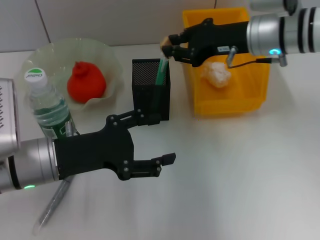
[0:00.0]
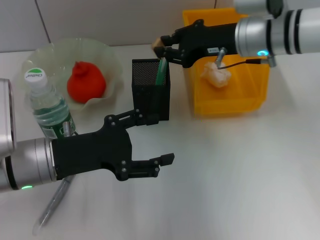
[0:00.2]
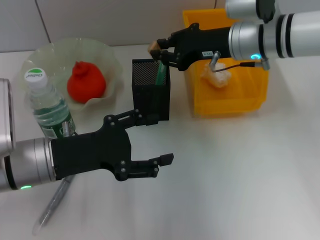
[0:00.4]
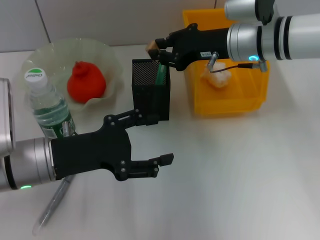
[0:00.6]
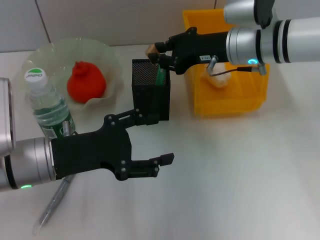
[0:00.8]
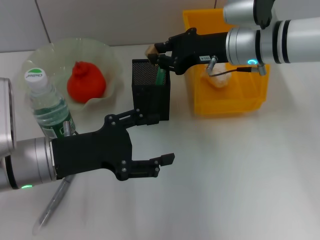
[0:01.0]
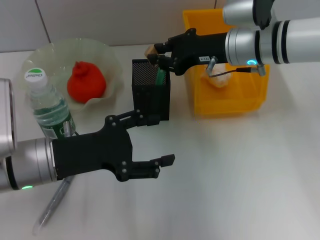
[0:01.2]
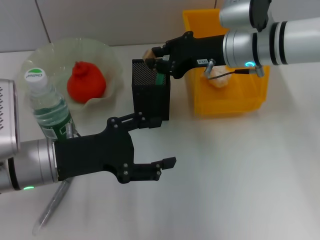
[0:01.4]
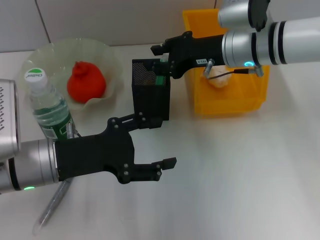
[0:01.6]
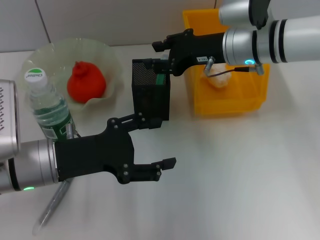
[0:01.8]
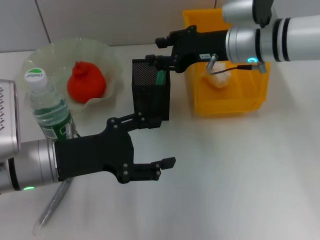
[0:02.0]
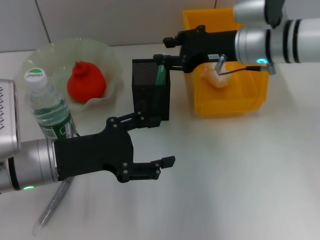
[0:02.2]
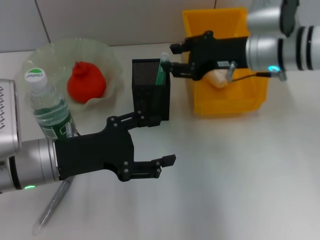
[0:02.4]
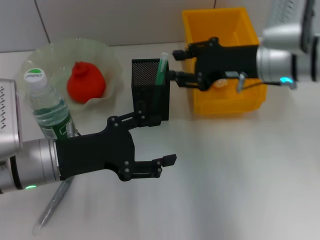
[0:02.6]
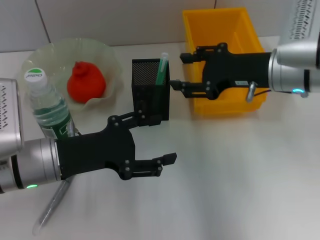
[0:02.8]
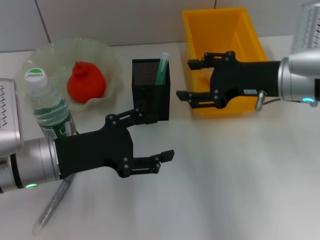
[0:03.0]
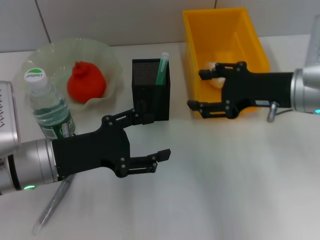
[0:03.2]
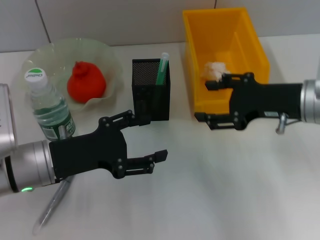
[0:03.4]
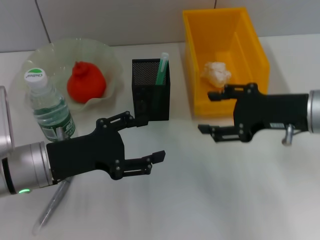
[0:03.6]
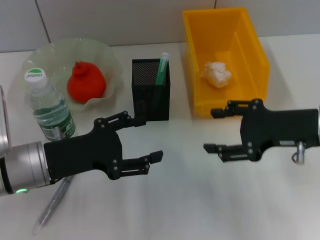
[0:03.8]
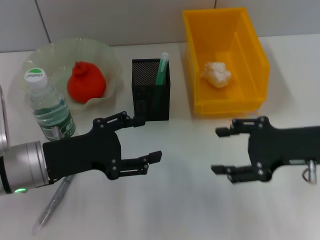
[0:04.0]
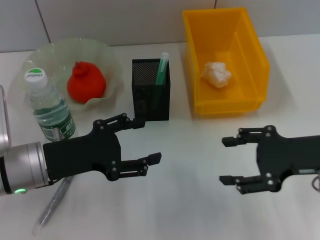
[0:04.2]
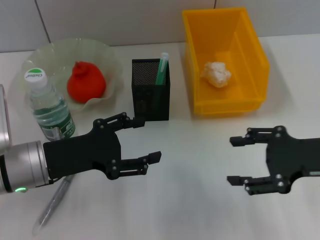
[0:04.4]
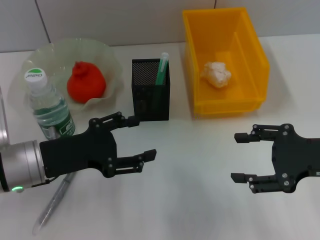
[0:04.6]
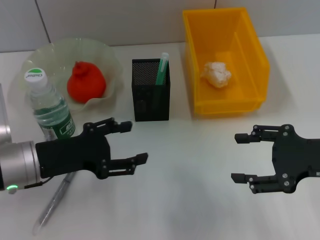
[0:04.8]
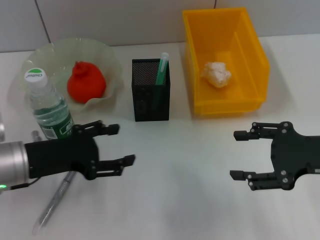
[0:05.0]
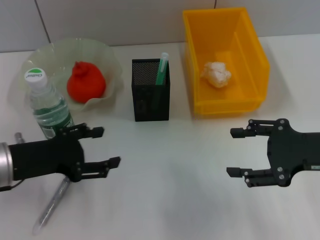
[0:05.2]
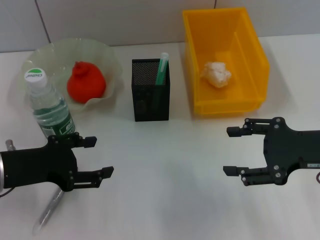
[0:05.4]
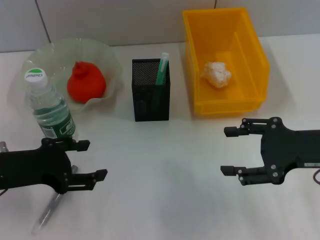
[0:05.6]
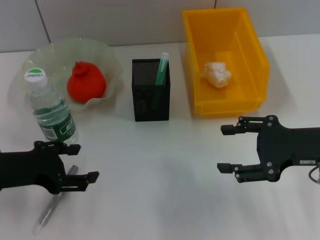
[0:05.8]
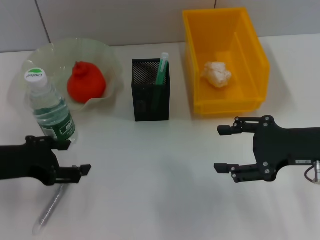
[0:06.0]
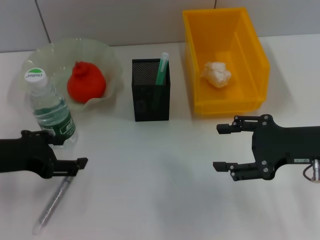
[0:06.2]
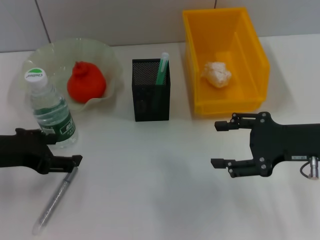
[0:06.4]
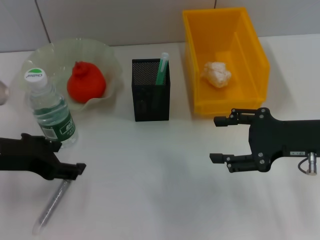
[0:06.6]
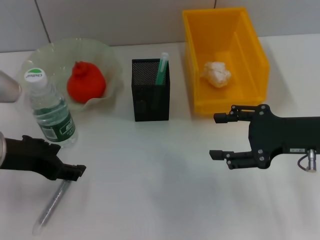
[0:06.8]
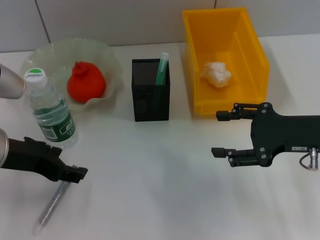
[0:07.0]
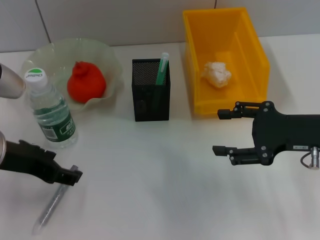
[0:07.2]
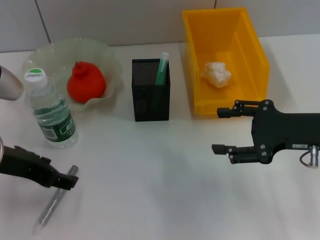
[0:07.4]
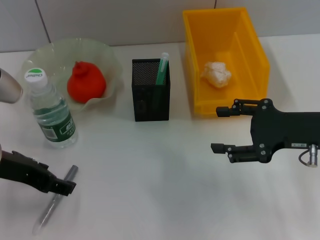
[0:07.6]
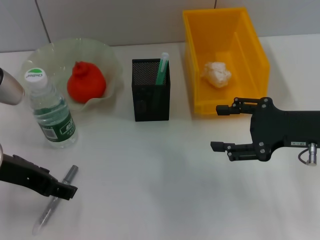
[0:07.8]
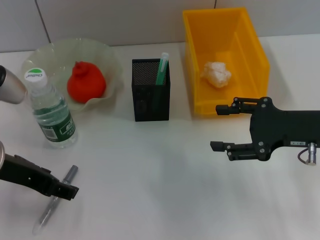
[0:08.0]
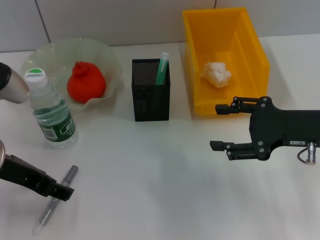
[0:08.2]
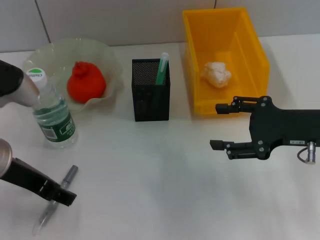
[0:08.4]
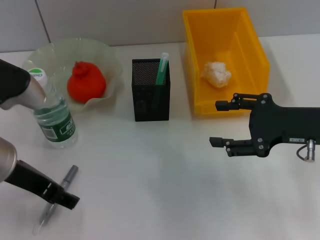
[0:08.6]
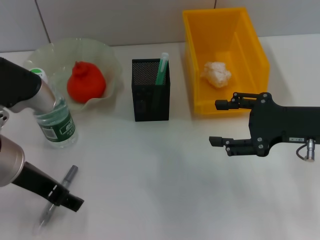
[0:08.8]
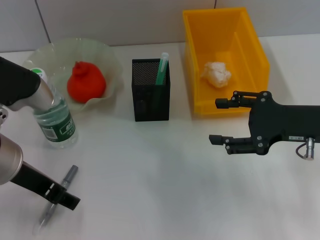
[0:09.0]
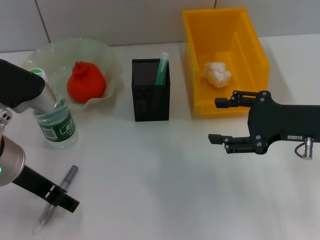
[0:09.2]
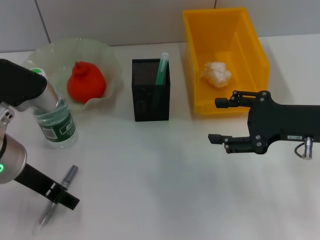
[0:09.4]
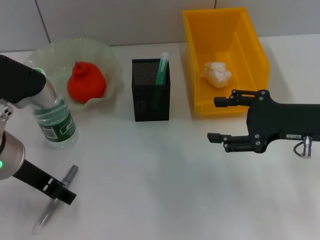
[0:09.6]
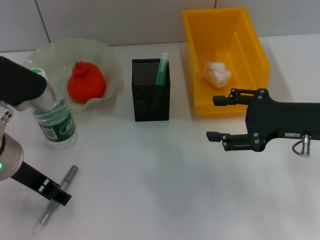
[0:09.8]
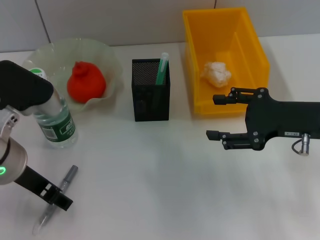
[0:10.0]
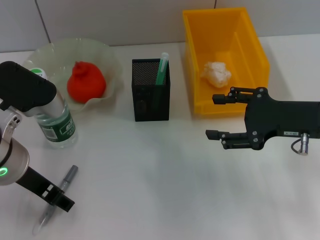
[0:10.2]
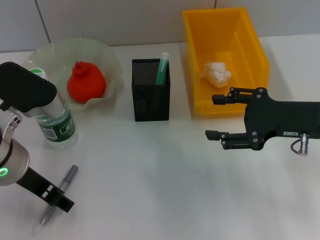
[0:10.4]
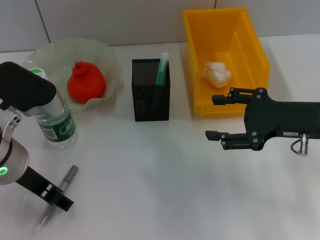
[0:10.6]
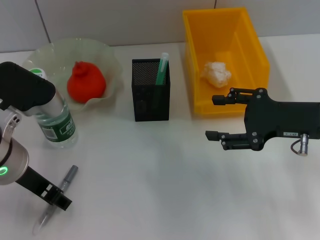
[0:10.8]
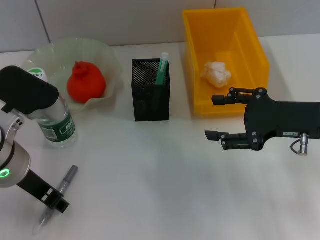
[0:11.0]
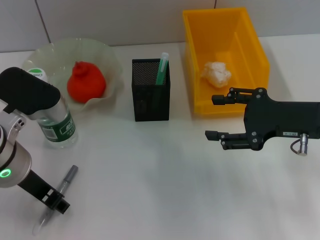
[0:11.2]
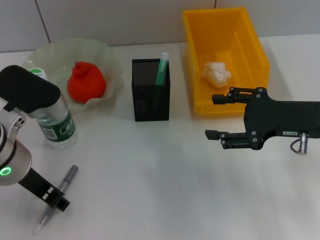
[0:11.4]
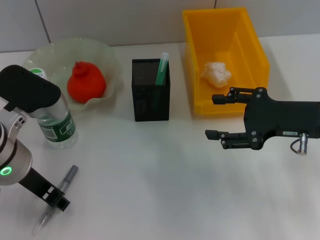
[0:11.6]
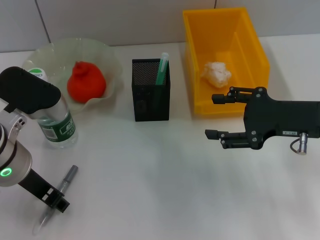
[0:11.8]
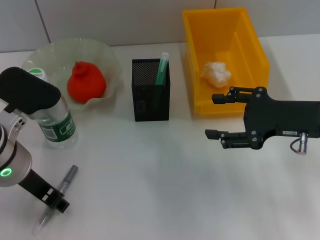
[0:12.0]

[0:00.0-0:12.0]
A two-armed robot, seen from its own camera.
Step, 0:00.0 to 0:02.0: Put the eraser into the pen holder with the right hand.
0:00.0 to 0:01.6: There are only small adjustments of the grippers.
0:01.6 to 0:03.0: The right gripper shifts roughly 10 cm backward and to the right, and opens up.
0:03.0 to 0:04.4: The right gripper heads backward and to the right, covering roughly 10 cm.
0:04.4 to 0:06.0: The left gripper is displaced to the left by roughly 5 cm.
0:06.0 to 0:07.6: The left gripper shifts by some 5 cm.
0:07.6 to 0:10.4: There are only small adjustments of the grippers.
0:10.4 to 0:12.0: The left gripper closes.

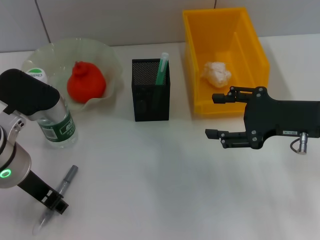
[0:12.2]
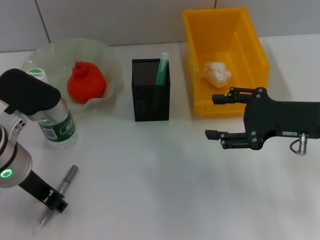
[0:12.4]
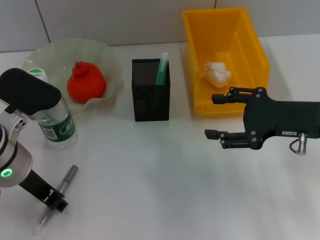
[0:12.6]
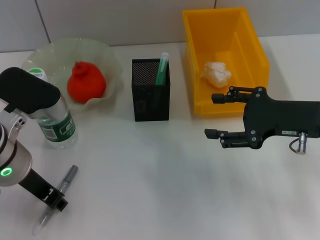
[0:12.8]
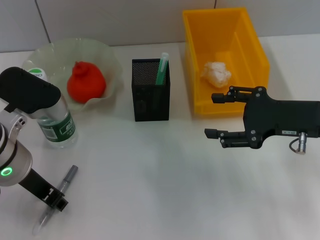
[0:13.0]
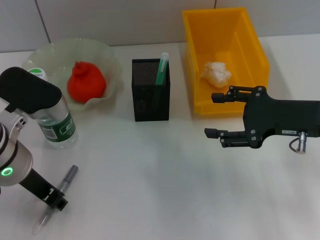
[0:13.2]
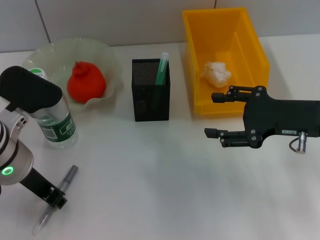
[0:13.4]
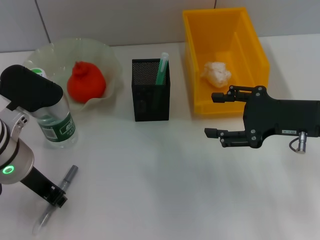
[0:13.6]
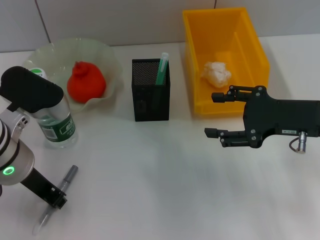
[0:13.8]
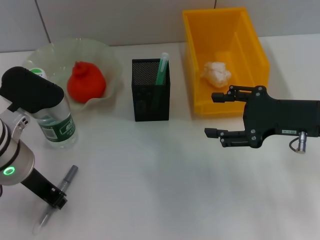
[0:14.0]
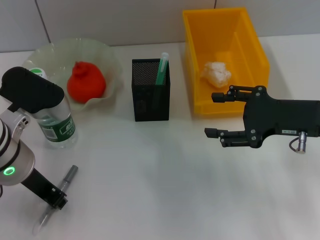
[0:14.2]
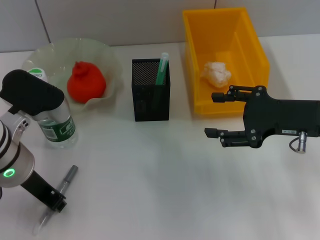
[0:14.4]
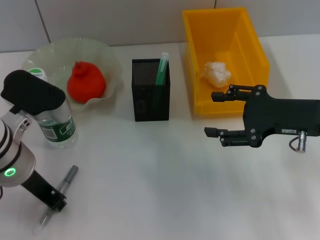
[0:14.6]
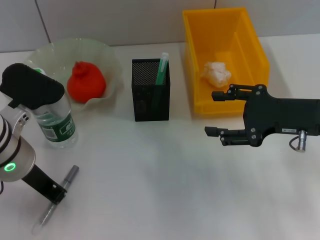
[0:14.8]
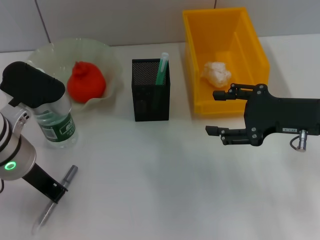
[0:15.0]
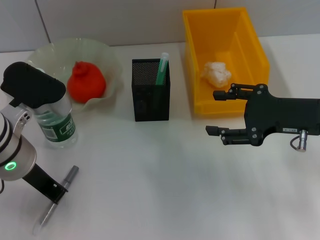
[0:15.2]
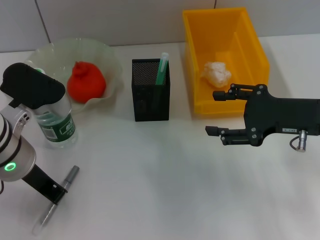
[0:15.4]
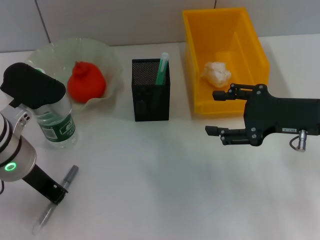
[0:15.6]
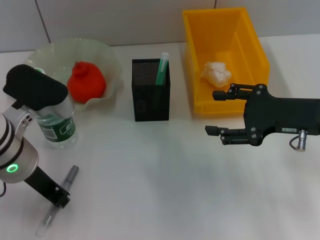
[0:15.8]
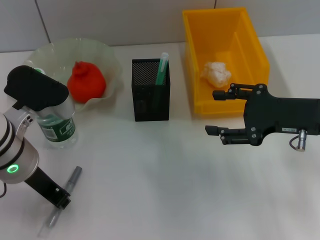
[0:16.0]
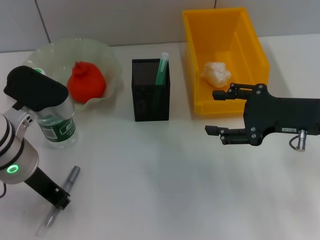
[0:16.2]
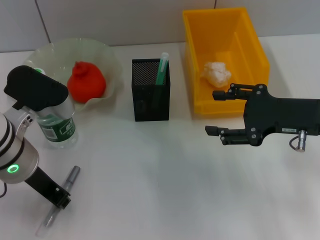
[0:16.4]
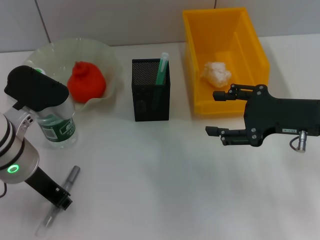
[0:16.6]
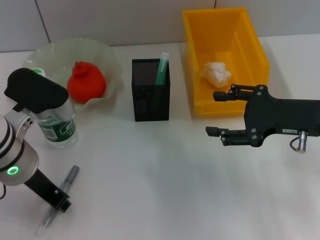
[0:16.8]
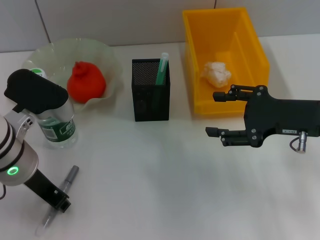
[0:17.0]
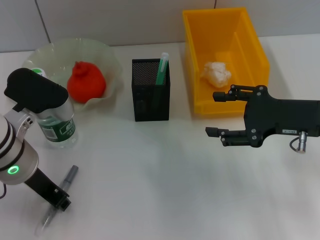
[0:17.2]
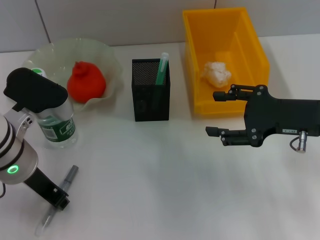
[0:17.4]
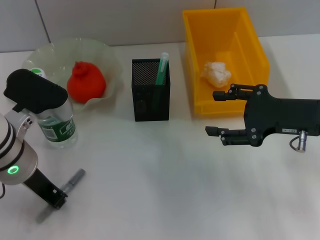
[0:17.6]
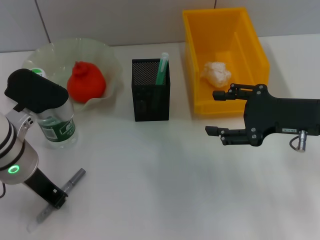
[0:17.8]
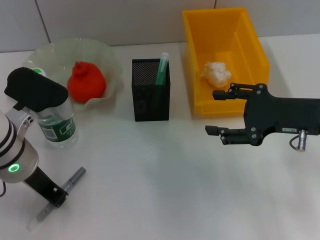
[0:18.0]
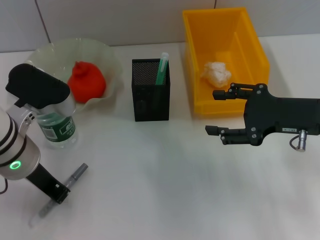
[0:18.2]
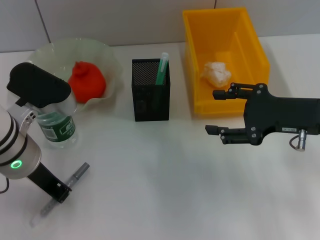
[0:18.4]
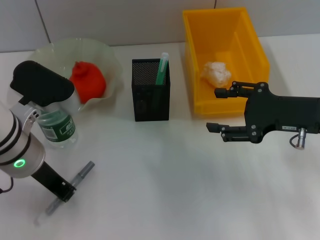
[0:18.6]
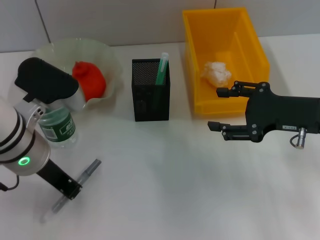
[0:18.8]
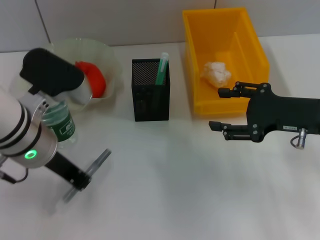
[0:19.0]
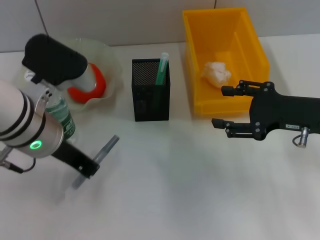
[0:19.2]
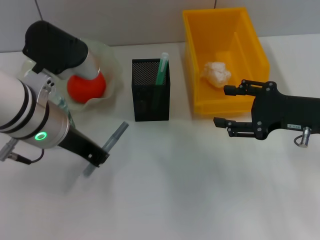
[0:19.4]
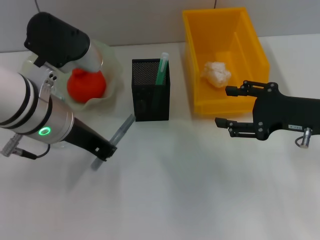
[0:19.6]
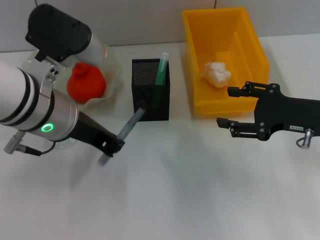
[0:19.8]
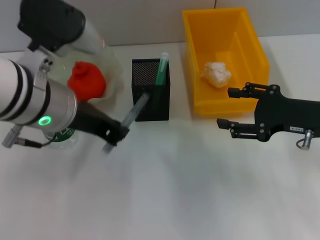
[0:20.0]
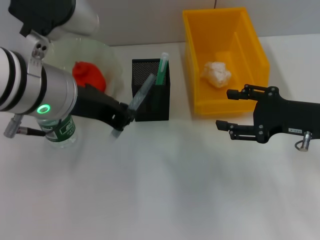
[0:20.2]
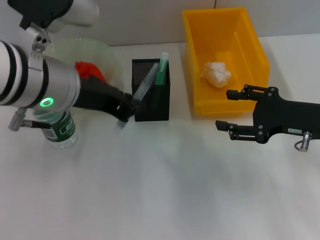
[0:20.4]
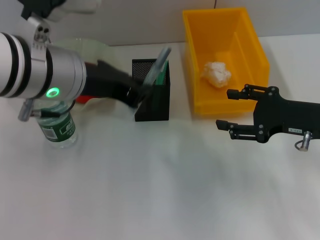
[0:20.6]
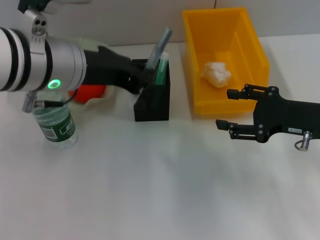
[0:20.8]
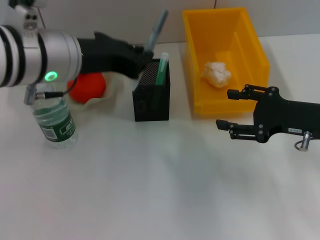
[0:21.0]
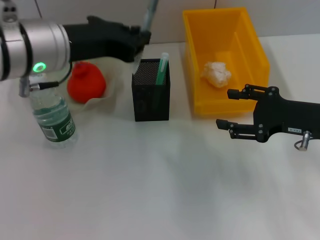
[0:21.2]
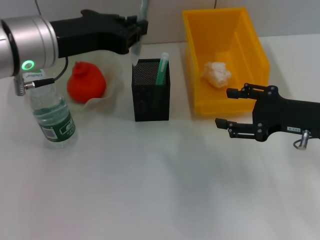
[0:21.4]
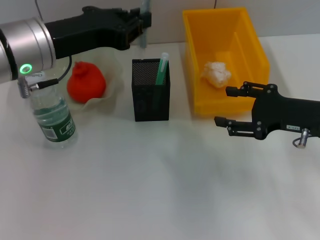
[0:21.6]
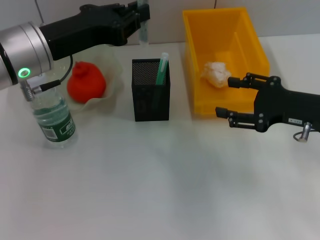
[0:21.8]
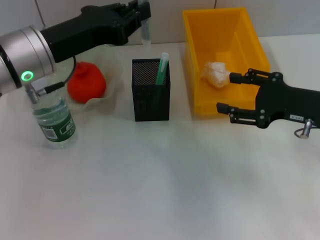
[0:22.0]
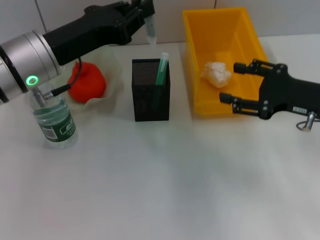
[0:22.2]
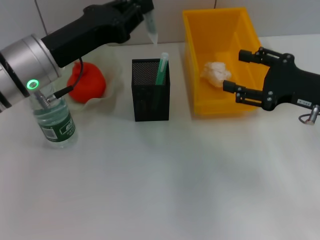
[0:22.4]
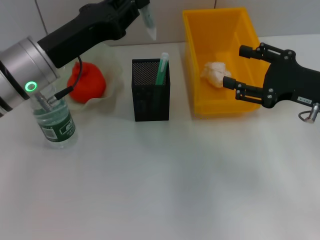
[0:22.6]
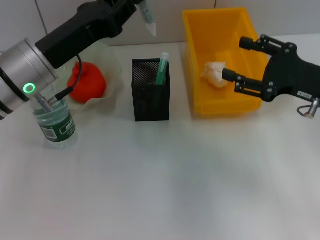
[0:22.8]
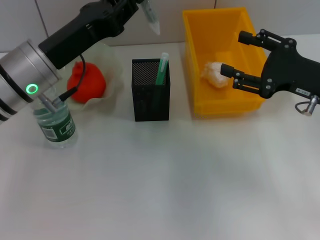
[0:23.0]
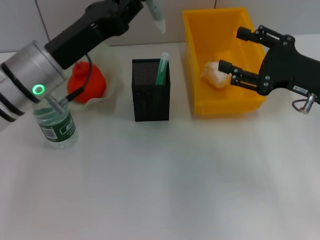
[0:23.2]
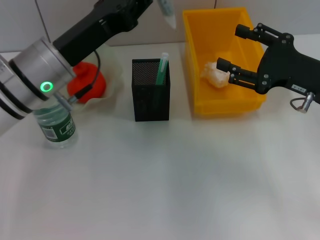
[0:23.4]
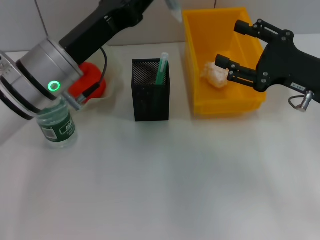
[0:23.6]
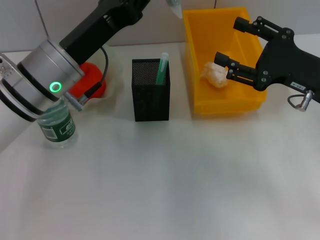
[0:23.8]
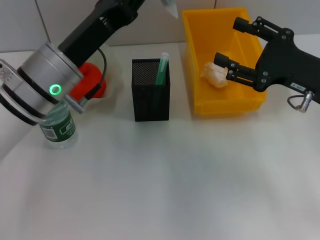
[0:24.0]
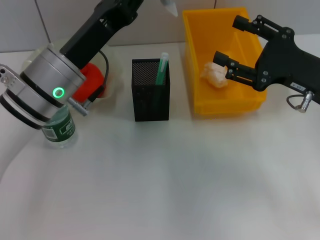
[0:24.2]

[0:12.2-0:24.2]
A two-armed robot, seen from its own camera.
Step, 0:12.2 to 0:18.6: Grab the gray glue with the left hand.
0:12.2 to 0:18.2: Both grippers stay about where they are.
0:18.2 to 0:19.8: The left gripper travels upward by about 5 cm.
0:21.2 to 0:22.6: The left gripper is displaced downward by roughly 5 cm.
0:22.6 to 0:24.2: The grippers make only small movements.
